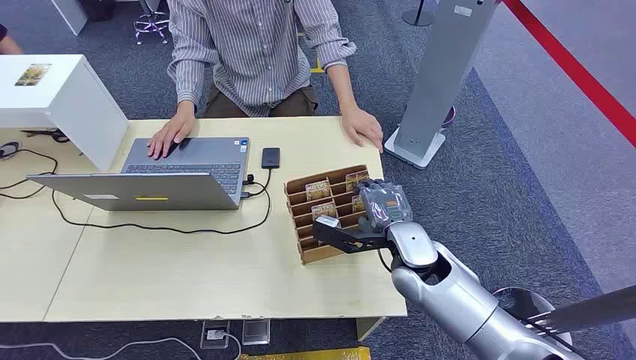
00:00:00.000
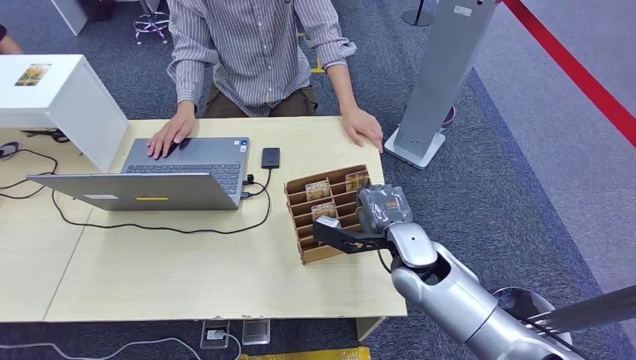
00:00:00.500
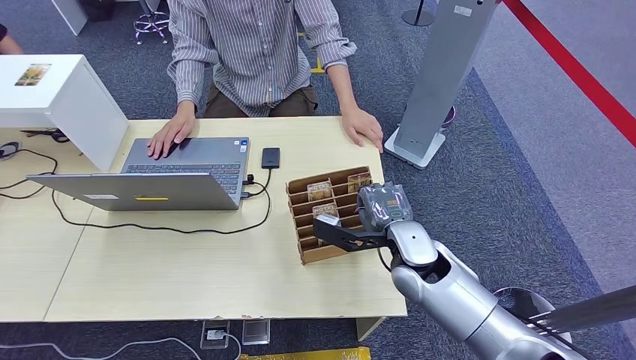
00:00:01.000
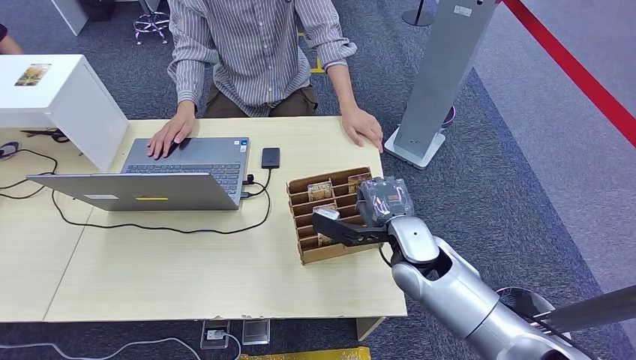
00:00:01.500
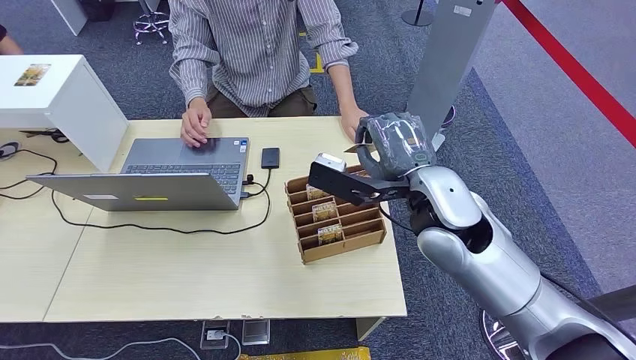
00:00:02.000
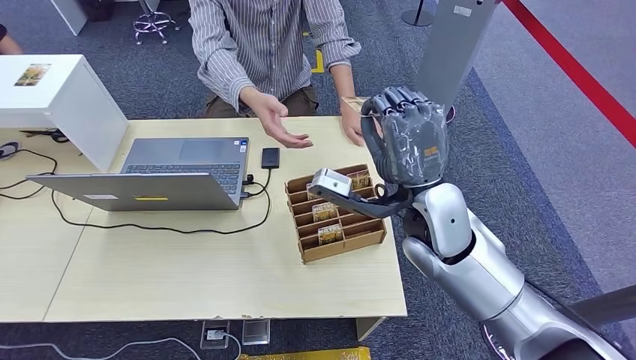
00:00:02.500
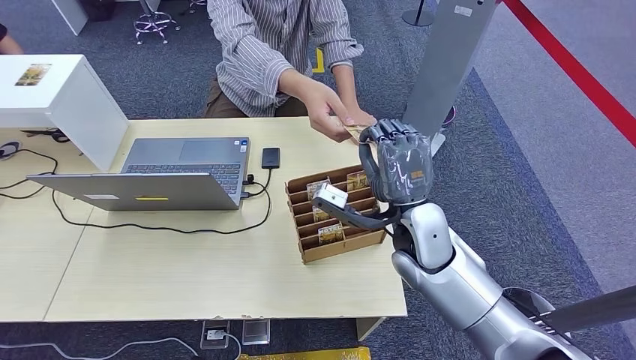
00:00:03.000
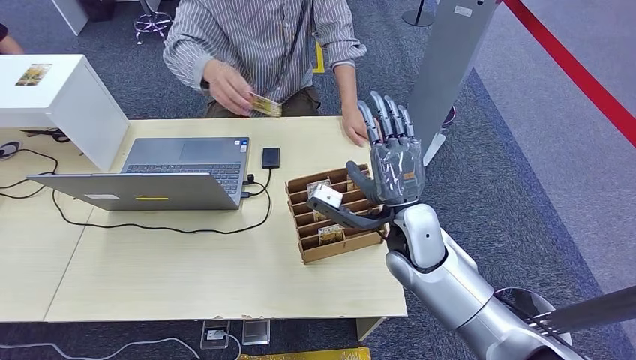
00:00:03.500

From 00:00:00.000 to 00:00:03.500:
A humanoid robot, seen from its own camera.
Step, from 00:00:00.000 to 00:00:01.500: Pick up the key card from the card box.
Step, from 00:00:03.000 to 00:00:03.500: Hand the key card to the target.
From 00:00:02.000 to 00:00:03.500: The right hand travels downward by roughly 10 cm.
